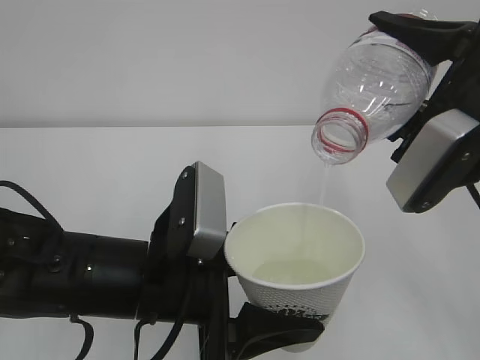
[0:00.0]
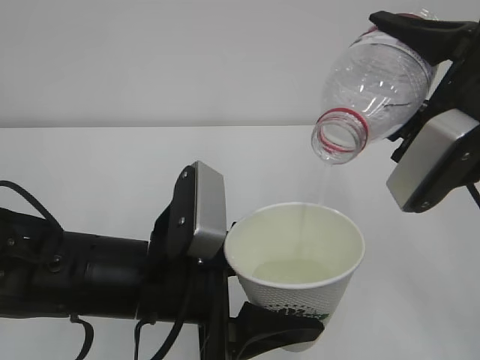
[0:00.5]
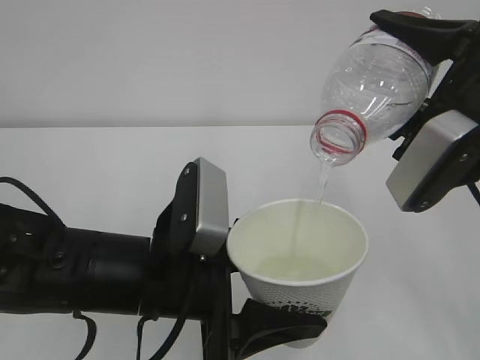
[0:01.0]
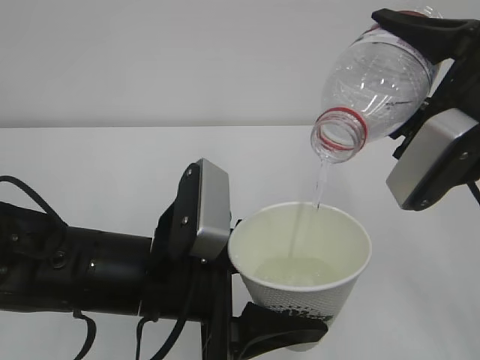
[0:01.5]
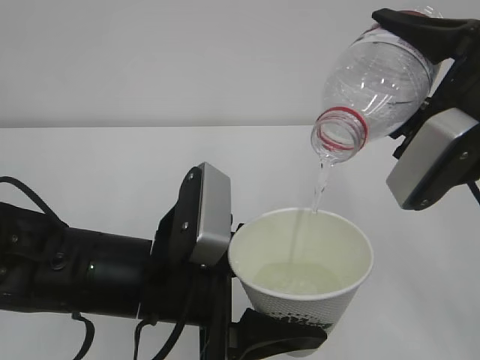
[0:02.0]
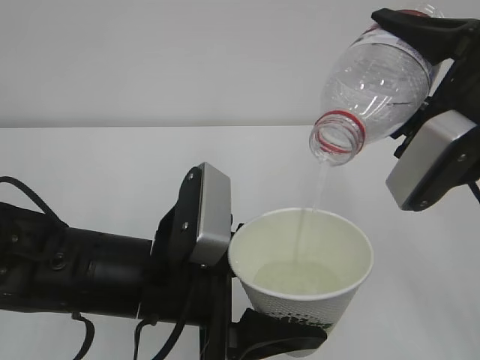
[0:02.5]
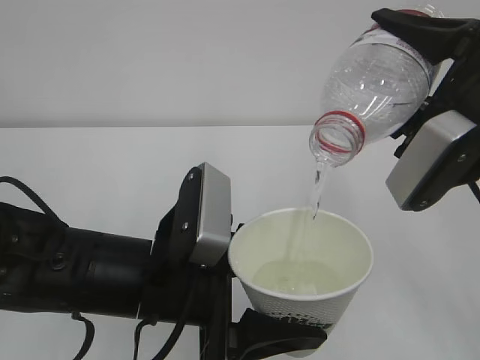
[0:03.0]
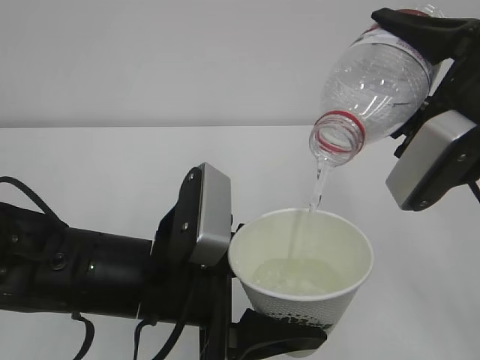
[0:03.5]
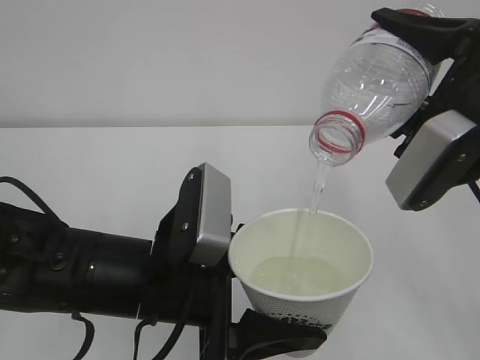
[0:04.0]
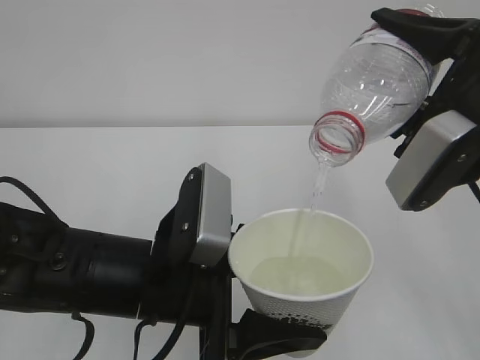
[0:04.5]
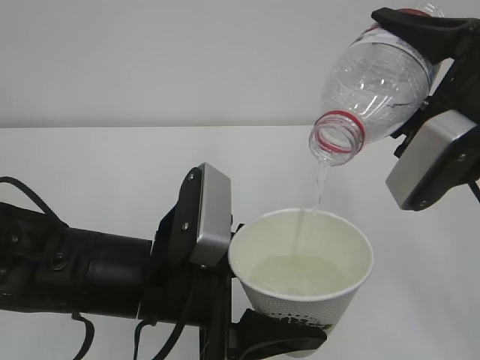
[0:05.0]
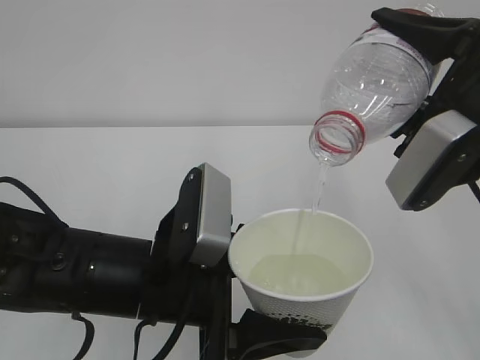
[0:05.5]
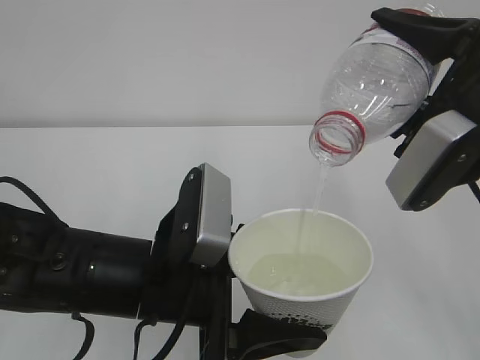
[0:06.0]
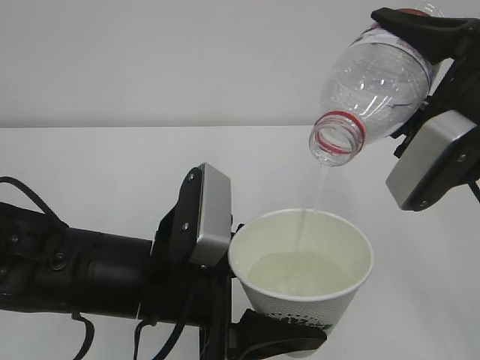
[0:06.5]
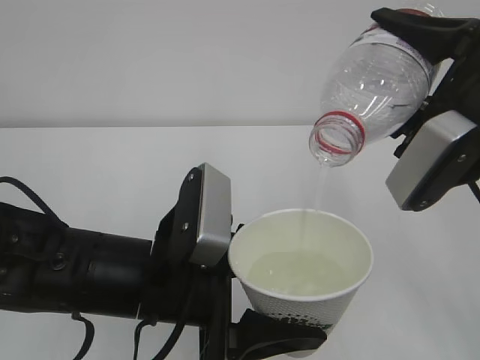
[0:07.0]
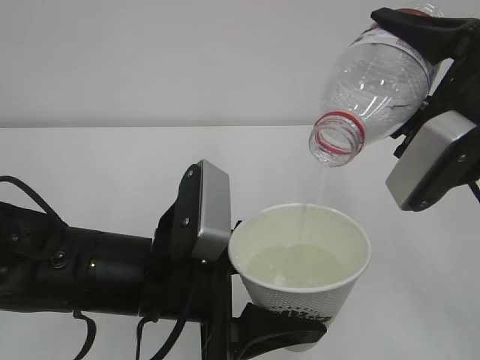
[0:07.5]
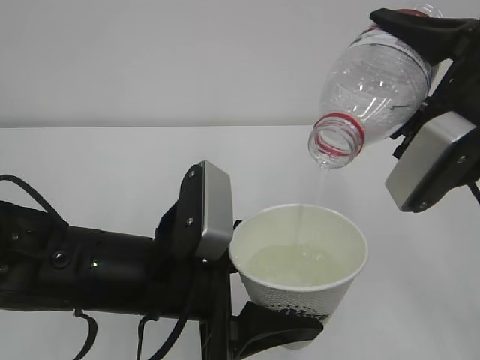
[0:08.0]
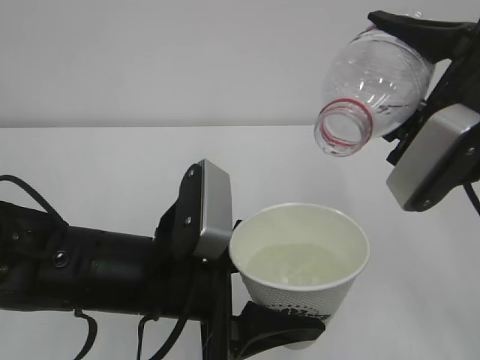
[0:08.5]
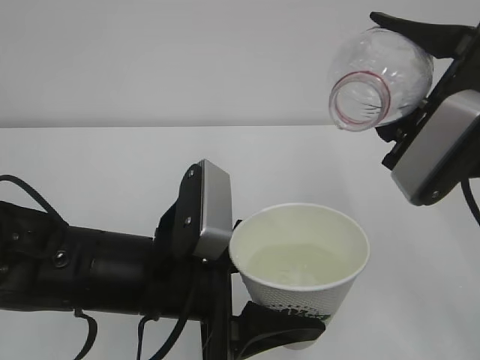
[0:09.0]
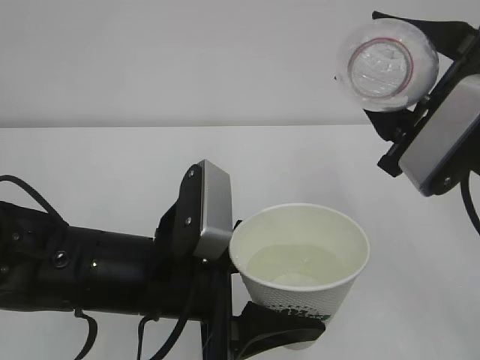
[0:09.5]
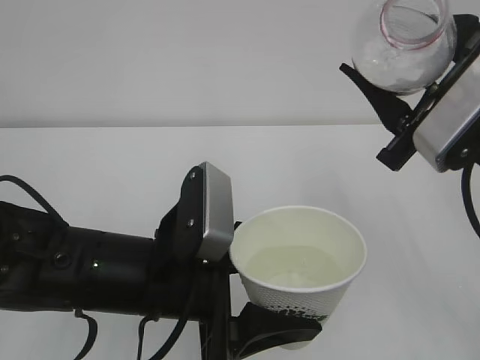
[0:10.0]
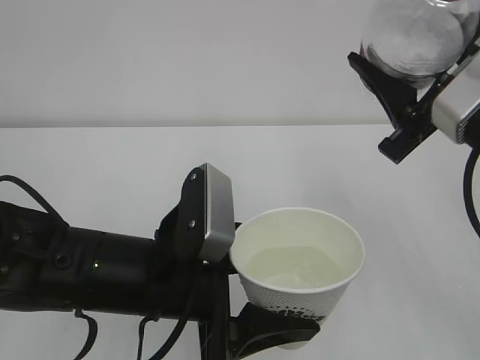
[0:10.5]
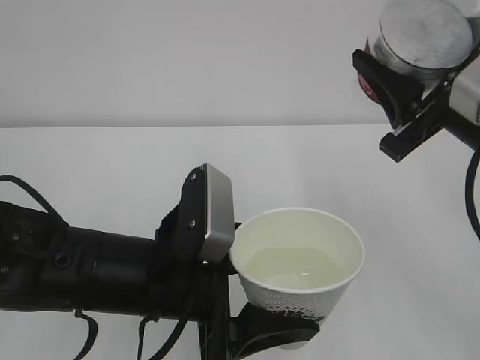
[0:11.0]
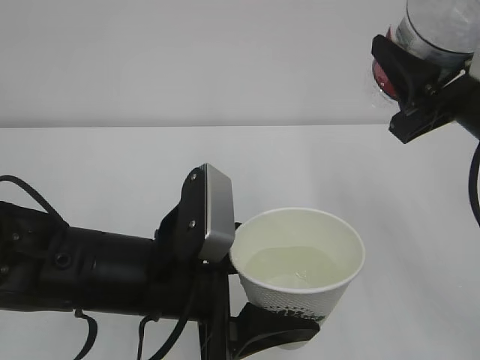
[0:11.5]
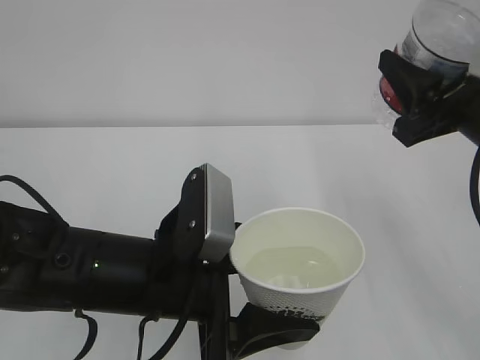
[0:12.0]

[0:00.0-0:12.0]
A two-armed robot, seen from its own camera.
0:00.0 to 0:08.0: The two grippers keep their place.

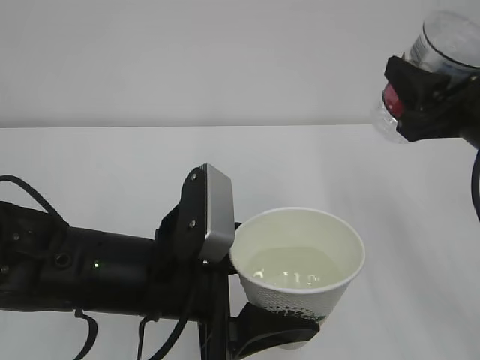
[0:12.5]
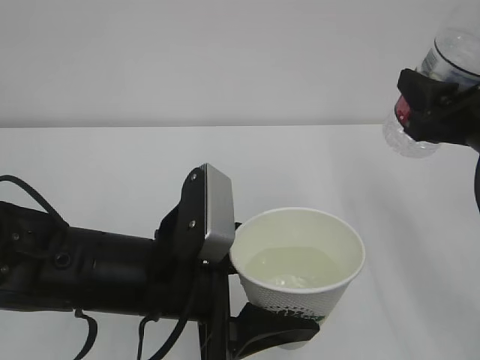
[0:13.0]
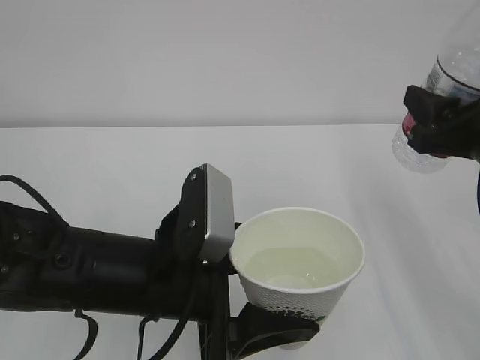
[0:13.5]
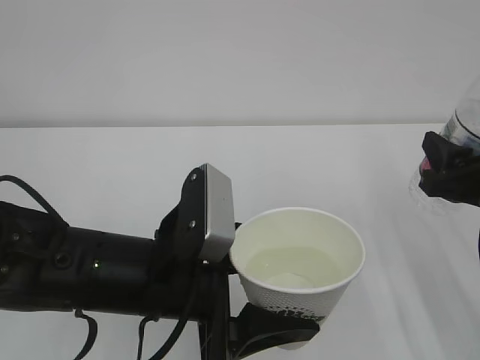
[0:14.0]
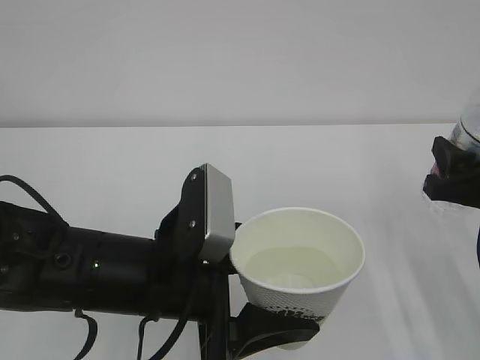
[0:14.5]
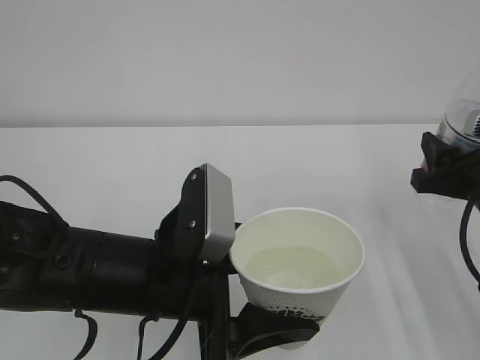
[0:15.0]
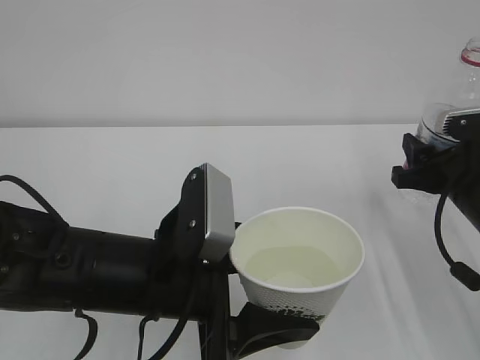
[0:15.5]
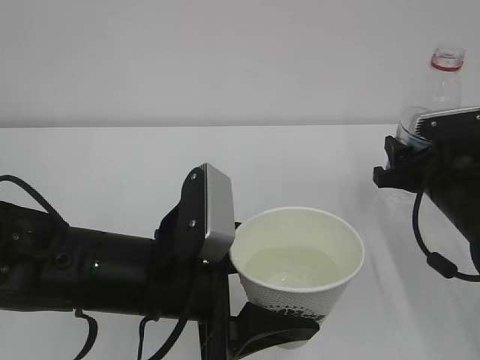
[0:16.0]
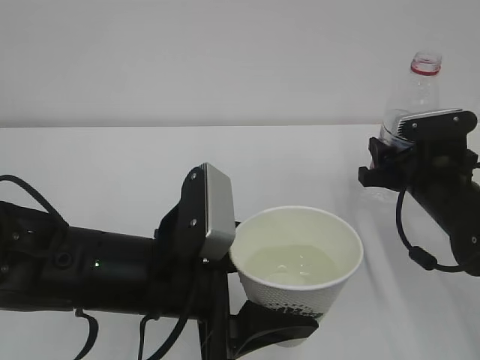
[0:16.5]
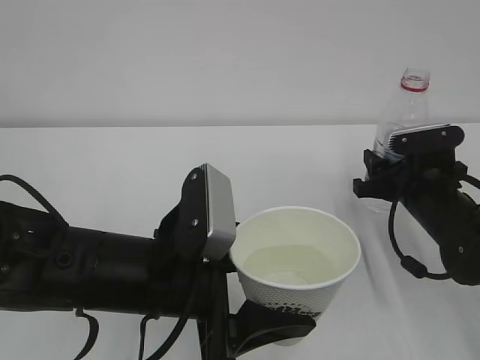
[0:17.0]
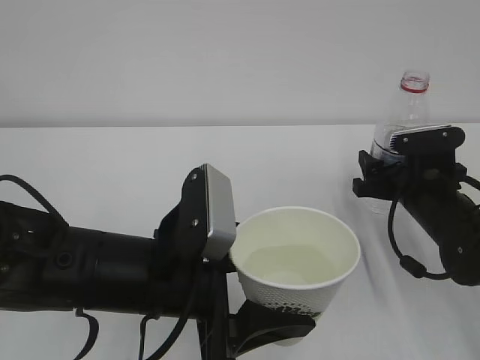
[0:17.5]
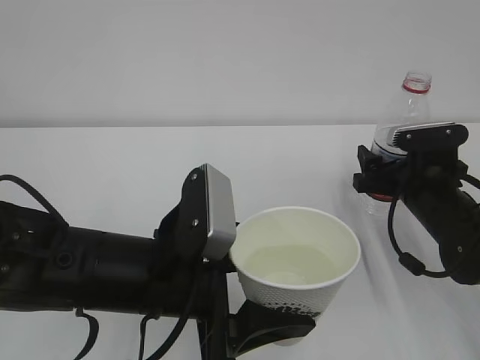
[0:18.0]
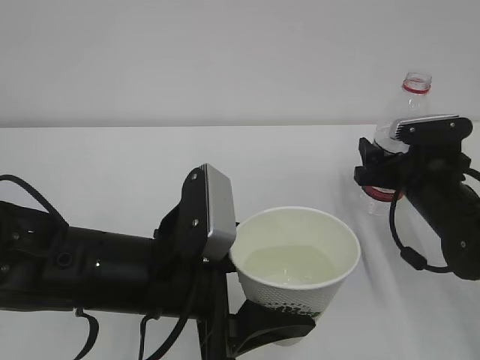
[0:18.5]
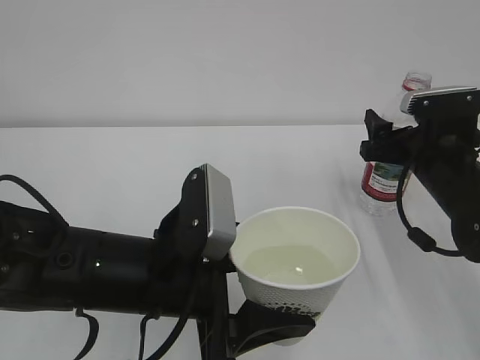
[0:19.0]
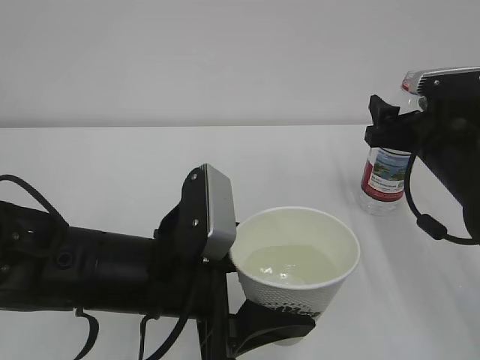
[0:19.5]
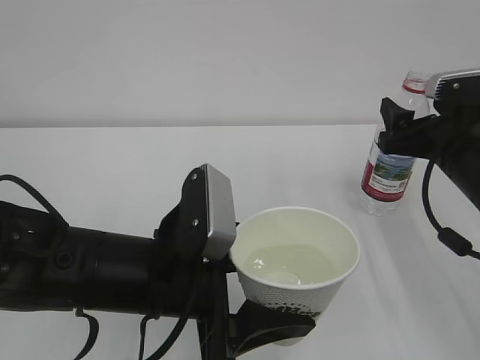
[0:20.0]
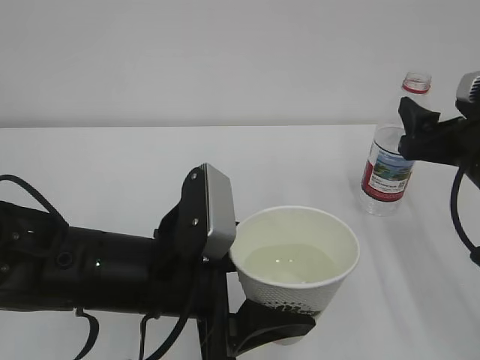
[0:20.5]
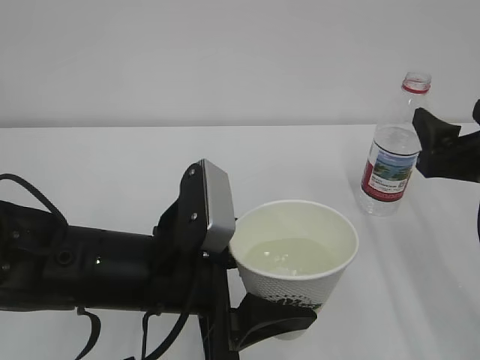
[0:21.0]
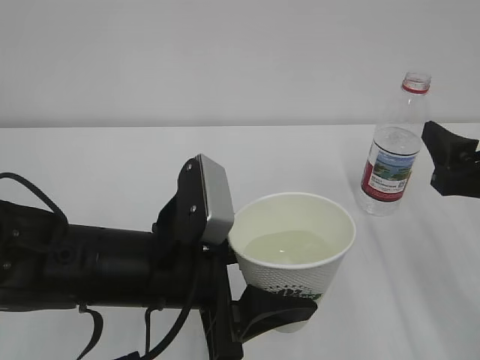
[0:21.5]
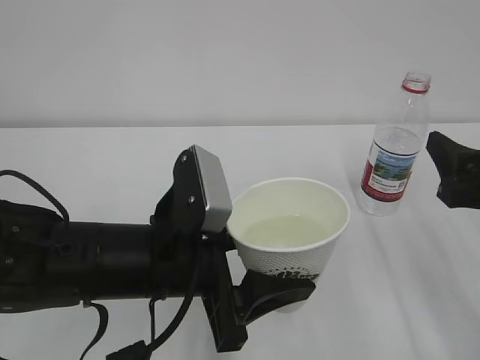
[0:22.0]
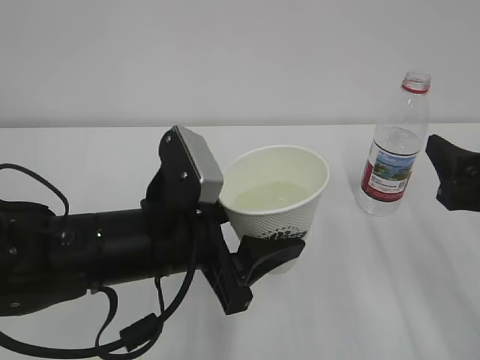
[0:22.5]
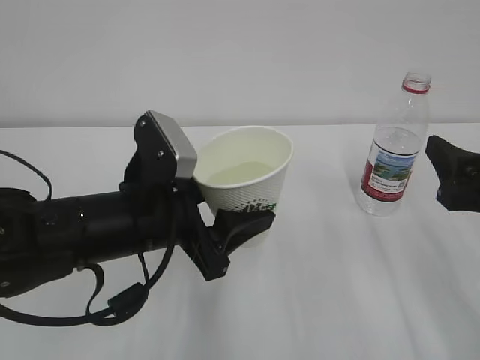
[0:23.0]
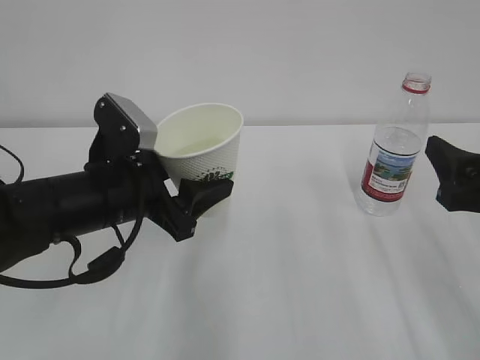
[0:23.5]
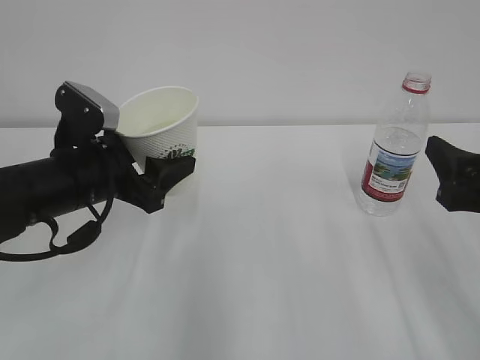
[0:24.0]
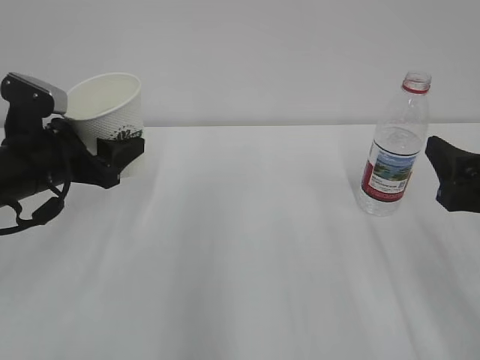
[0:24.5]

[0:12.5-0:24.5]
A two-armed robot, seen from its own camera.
0:12.5 to 0:14.5: The right gripper is displaced downward by about 10 cm.
0:14.5 to 0:16.5: The right gripper heads forward and downward, covering roughly 10 cm.
0:16.5 to 0:18.5: The right gripper opens its fingers.
0:18.5 to 0:20.5: The right gripper shifts roughly 10 cm upward and backward.
0:20.5 to 0:22.5: The right gripper moves backward, roughly 5 cm.
0:22.5 to 0:24.5: The left gripper moves to the left and forward, about 20 cm.

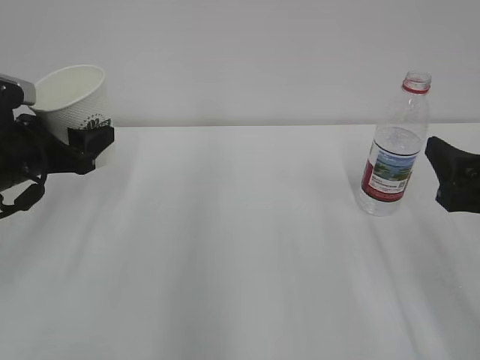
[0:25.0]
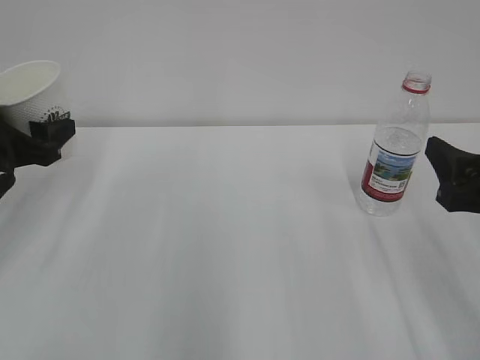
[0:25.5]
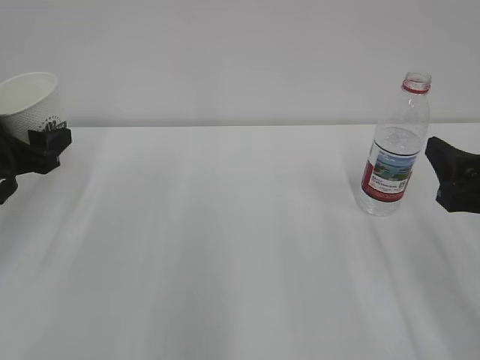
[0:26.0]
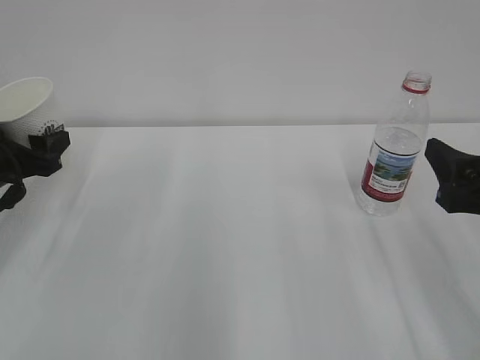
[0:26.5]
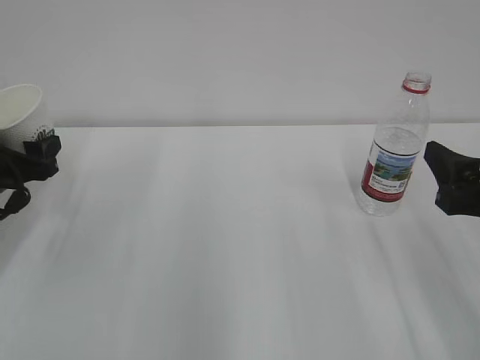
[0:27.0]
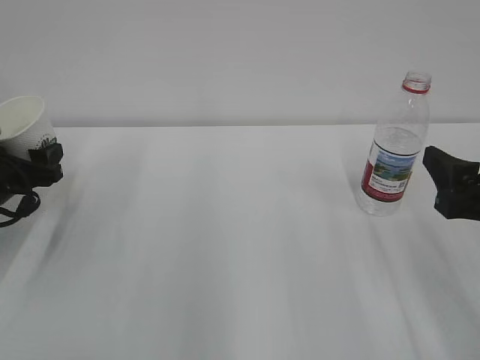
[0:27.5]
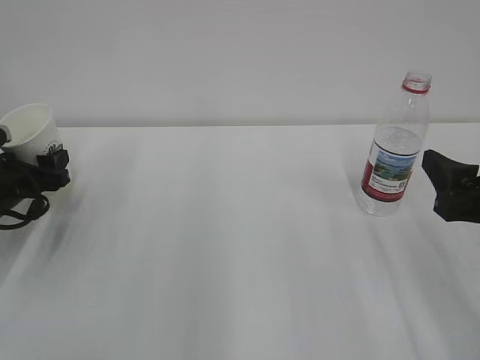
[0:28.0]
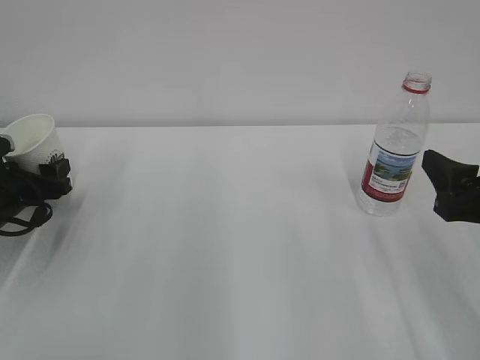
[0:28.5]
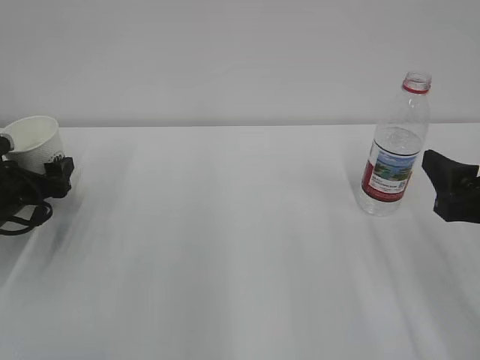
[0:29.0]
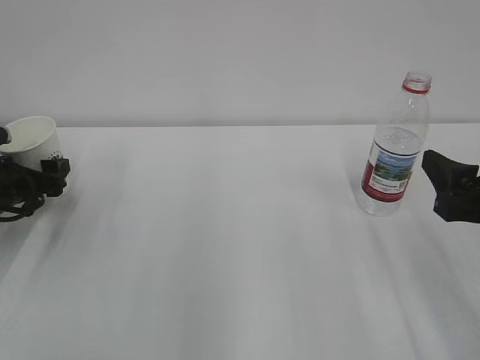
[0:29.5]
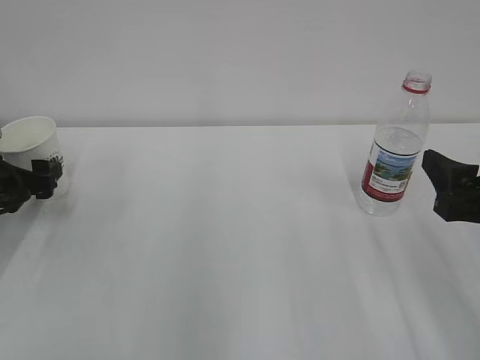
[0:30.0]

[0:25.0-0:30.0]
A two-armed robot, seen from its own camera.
0:25.0 to 0:27.5: The left gripper travels downward and to the left by approximately 10 cm.
0:27.5 to 0:30.0: The left gripper opens.
